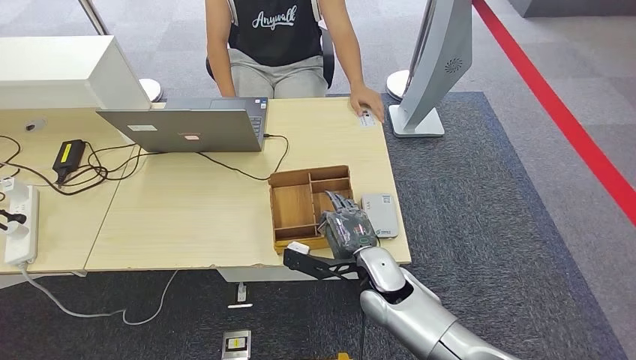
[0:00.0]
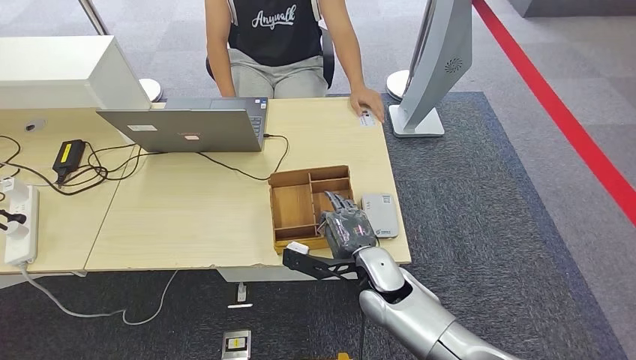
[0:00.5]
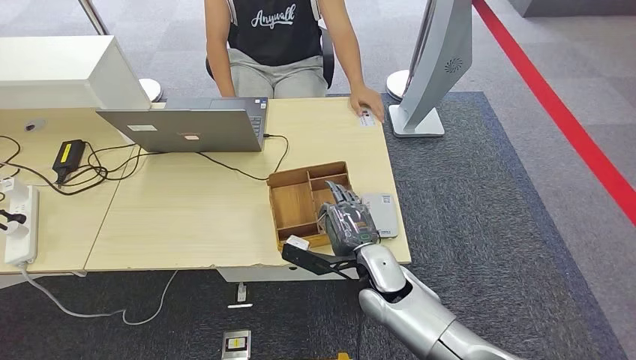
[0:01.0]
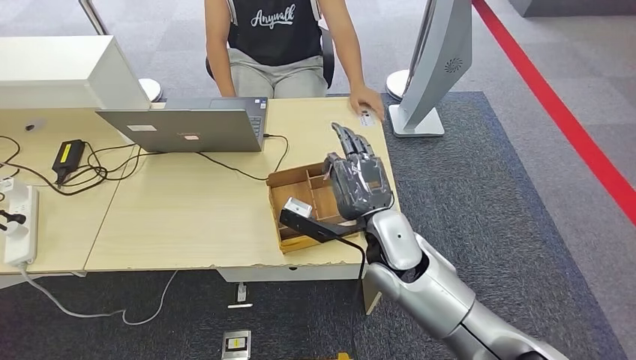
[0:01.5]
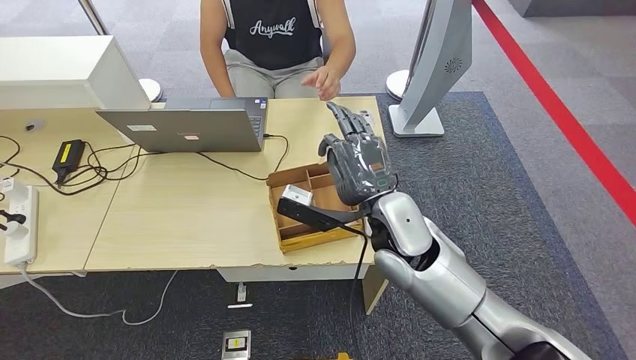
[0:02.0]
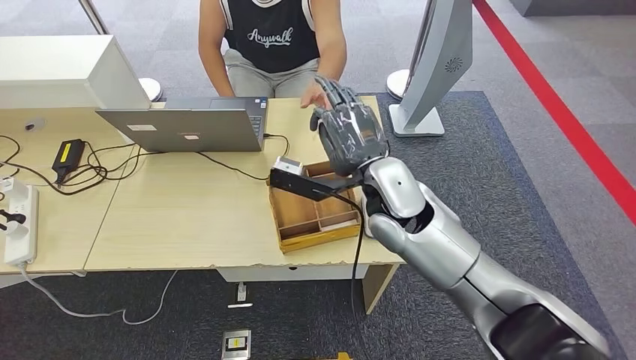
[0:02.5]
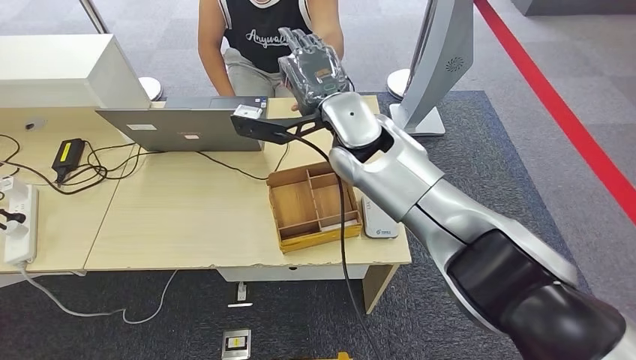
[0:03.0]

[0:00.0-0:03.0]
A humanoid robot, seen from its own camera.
Step, 0:00.5 to 0:03.0: Hand the room key to the person.
0:00.0 to 0:01.5: The right hand moves upward, some 10 cm.
